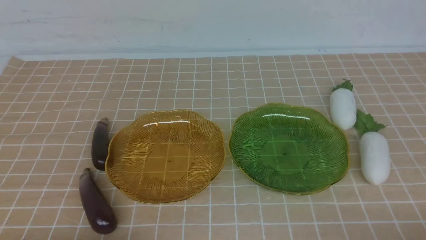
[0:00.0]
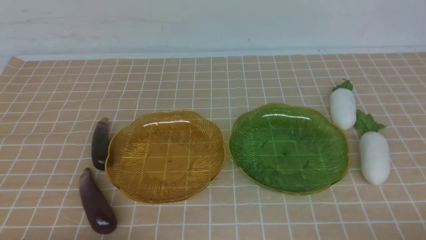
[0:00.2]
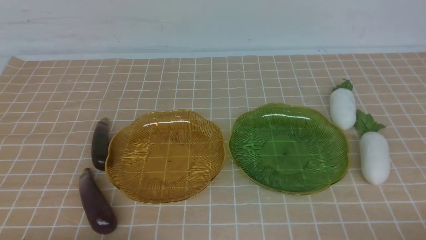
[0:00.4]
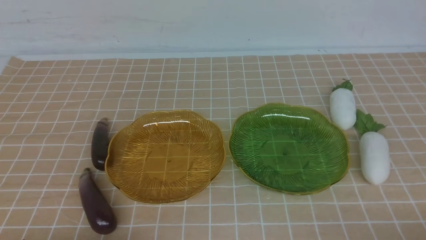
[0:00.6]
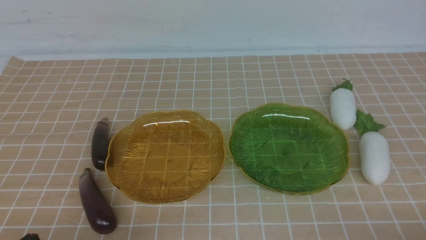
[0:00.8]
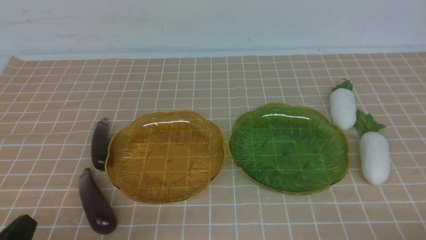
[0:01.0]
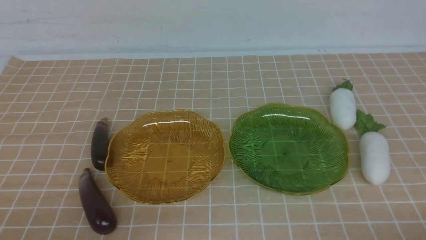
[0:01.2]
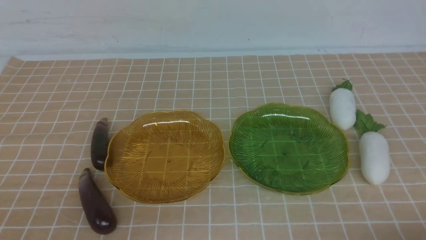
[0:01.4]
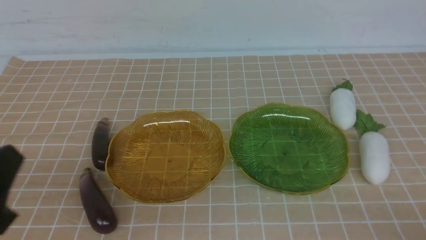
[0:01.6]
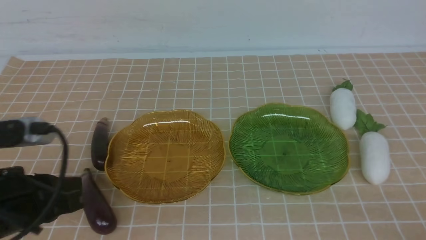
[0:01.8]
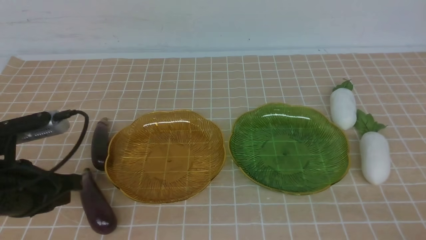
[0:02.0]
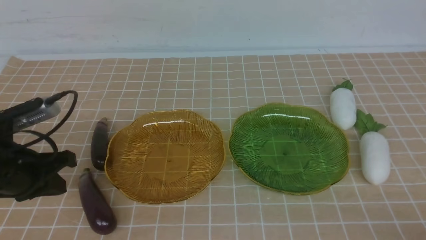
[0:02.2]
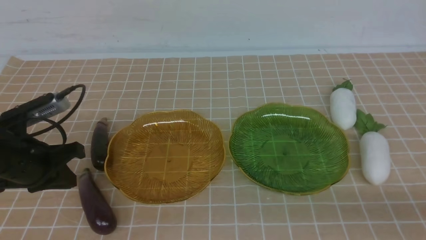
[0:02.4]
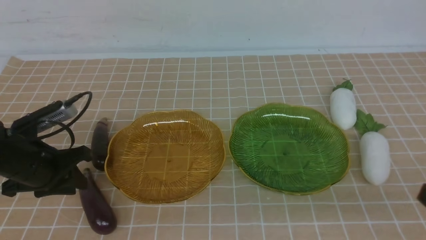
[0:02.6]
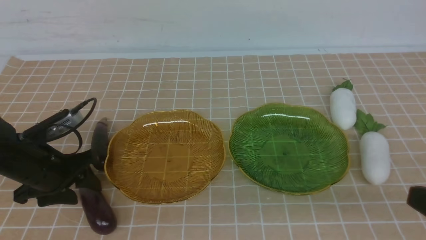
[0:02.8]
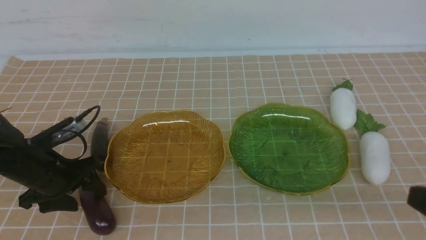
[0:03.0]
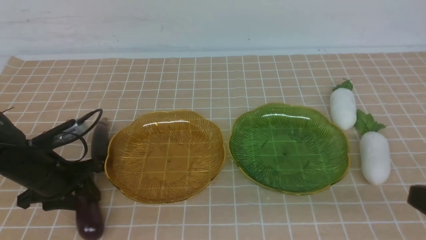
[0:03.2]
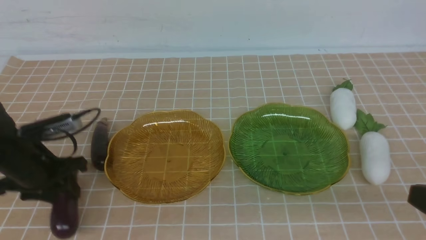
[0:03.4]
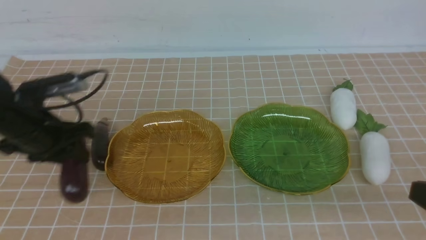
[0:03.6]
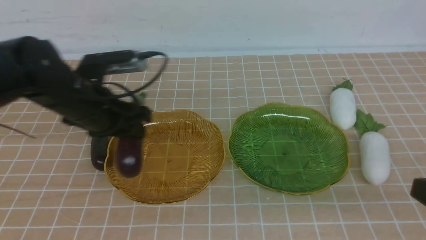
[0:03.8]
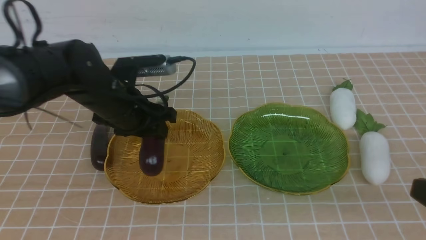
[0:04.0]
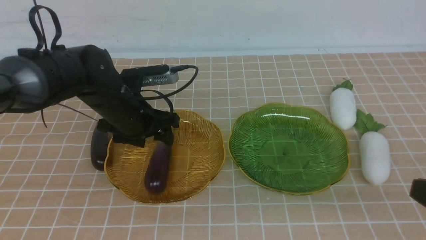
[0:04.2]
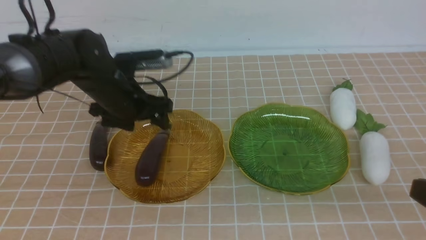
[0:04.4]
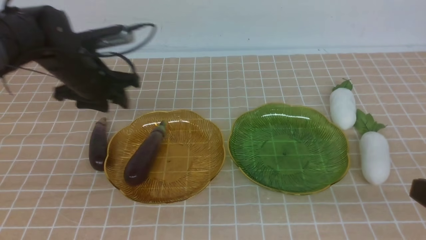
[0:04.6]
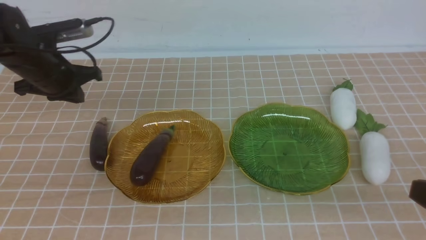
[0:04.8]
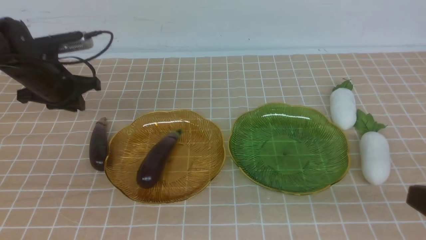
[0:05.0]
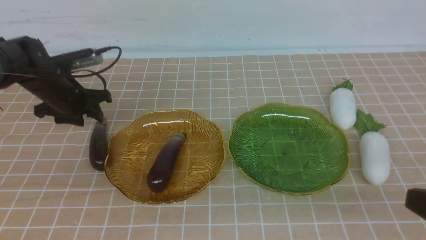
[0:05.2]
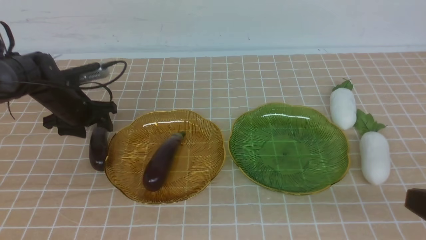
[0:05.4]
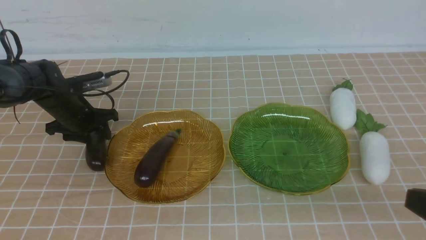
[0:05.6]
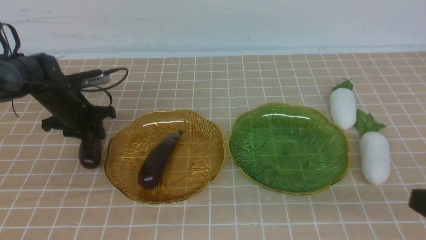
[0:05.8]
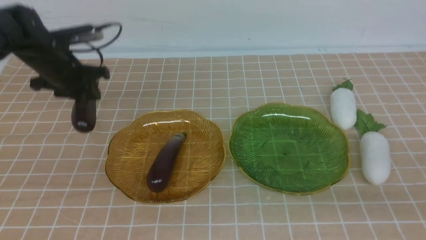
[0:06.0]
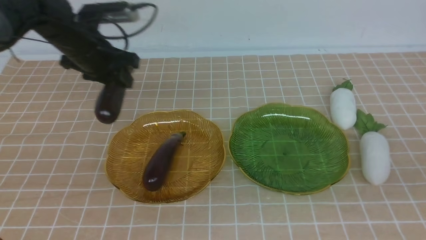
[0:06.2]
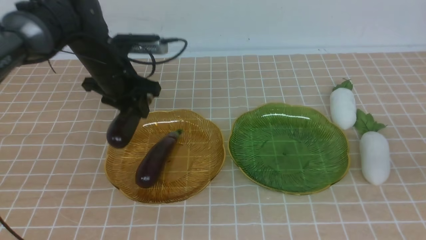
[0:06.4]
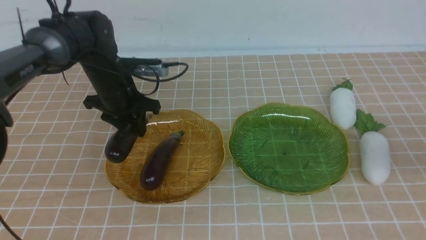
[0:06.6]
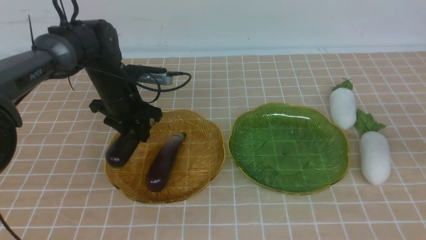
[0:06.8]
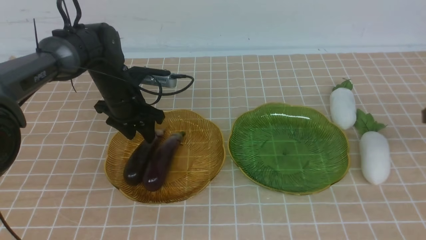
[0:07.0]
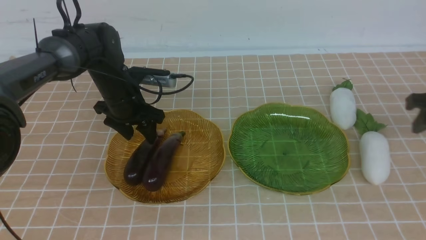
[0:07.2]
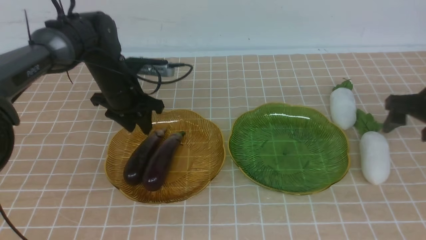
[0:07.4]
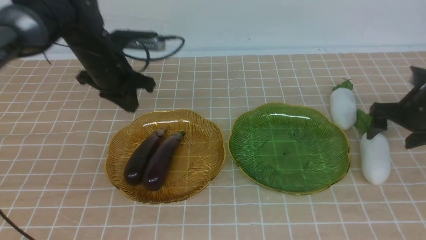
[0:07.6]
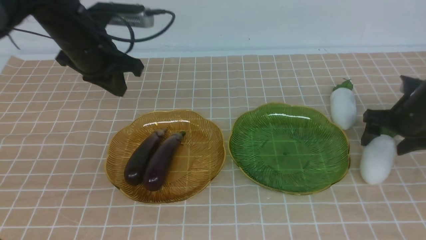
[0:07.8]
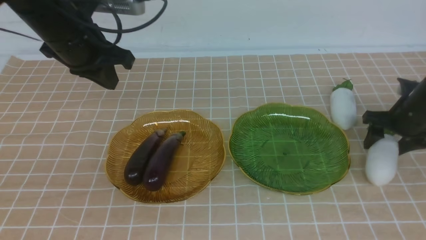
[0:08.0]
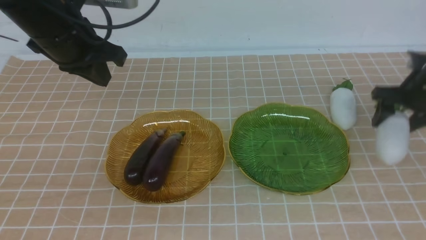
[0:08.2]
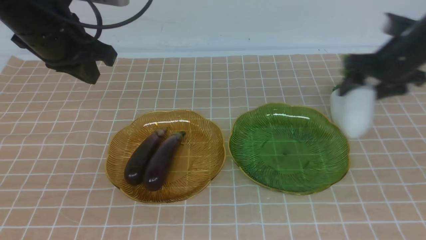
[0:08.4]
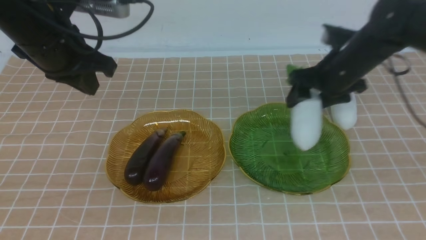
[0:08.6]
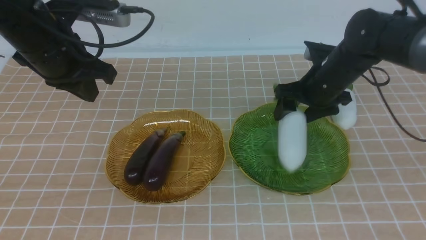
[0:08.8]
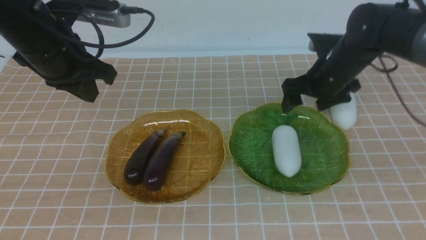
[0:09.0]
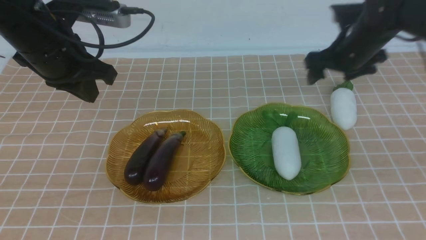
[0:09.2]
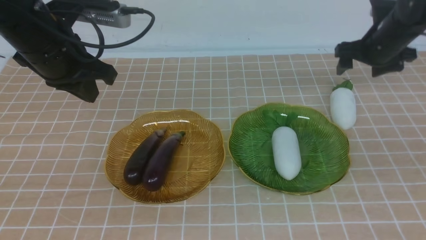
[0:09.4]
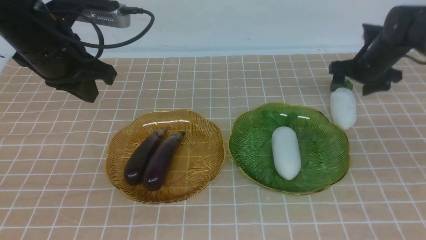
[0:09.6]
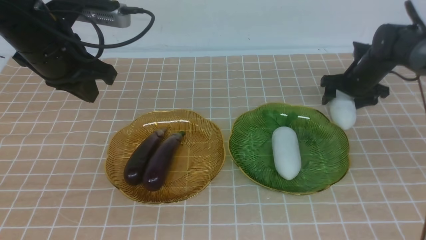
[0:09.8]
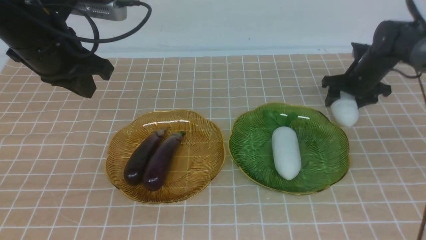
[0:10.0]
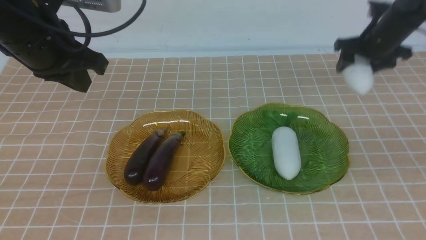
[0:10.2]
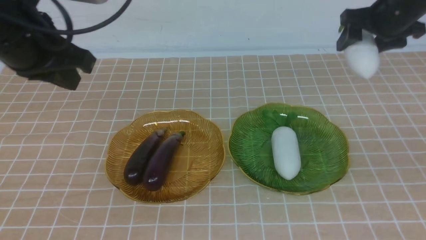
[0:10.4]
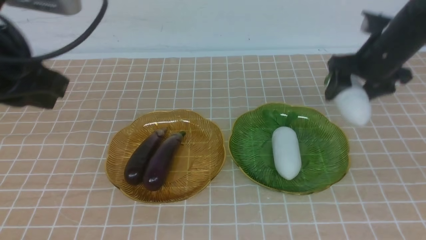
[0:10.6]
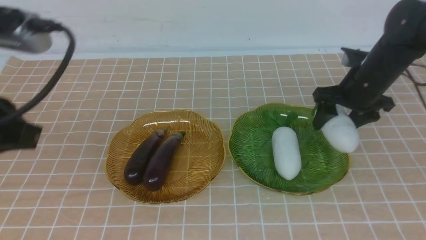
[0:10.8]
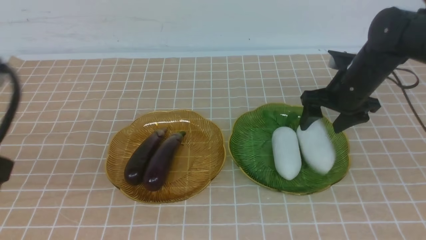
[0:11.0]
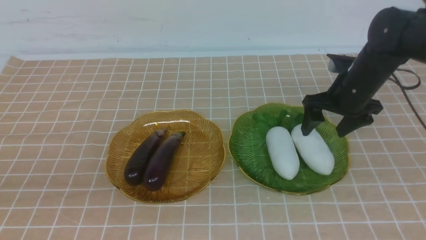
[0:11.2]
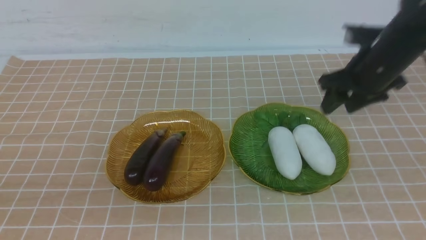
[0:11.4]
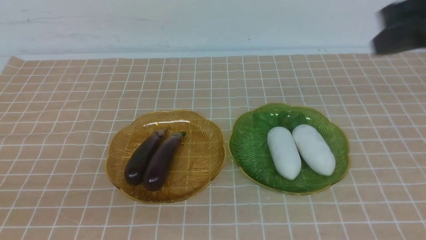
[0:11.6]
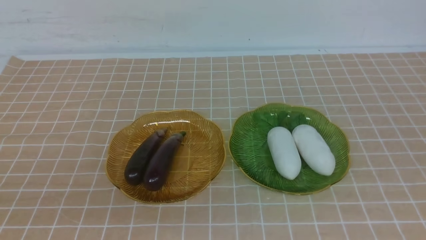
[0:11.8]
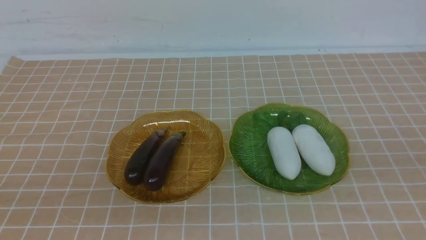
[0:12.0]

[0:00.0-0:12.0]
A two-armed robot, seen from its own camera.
Step, 0:00.0 to 0:07.2: use the left arm to grab an eggplant and put it into the left plate.
Step, 0:07.4 to 0:11.2: use the right arm to grab a radish and put it into the right plate.
0:00.0 to 0:01.6: The left gripper heads upward and forward, covering some 15 cm.
0:01.6 to 0:03.0: The left gripper is displaced forward and downward by some 20 cm, and opens.
0:03.0 to 0:04.4: The left gripper goes roughly 15 cm to the right, forward and upward, and closes, then reopens.
0:04.4 to 0:06.0: The left gripper goes some 10 cm to the left and forward, and closes.
0:06.0 to 0:07.6: The right gripper goes approximately 30 cm forward and downward, and opens. Meanwhile the left gripper goes about 10 cm upward and to the right, and closes.
0:07.6 to 0:09.0: The left gripper moves backward, about 5 cm; the right gripper moves forward, to the left and upward, approximately 15 cm.
0:09.0 to 0:10.4: The left gripper heads backward, covering approximately 20 cm, while the right gripper travels backward by some 10 cm.
0:10.4 to 0:12.0: The left gripper is displaced backward by about 10 cm. The right gripper shifts some 40 cm backward, and closes.

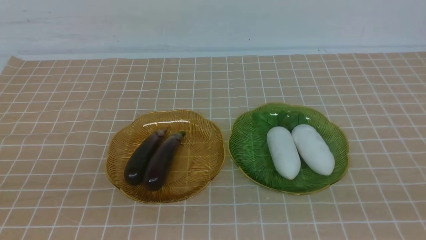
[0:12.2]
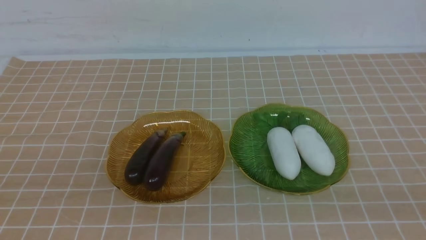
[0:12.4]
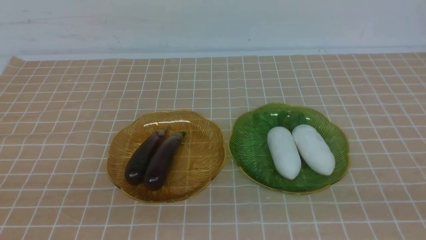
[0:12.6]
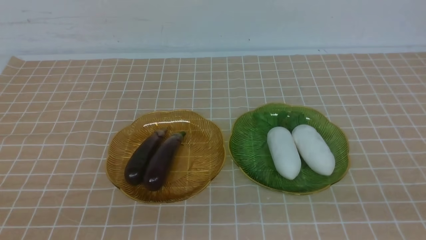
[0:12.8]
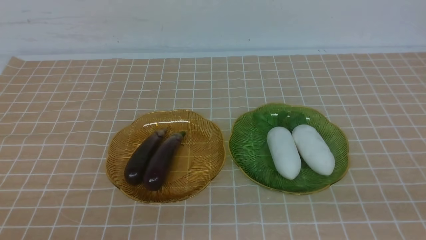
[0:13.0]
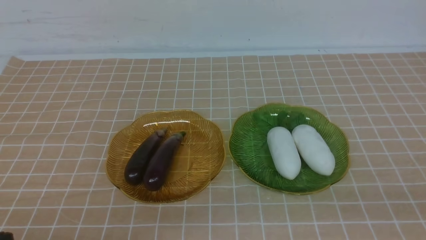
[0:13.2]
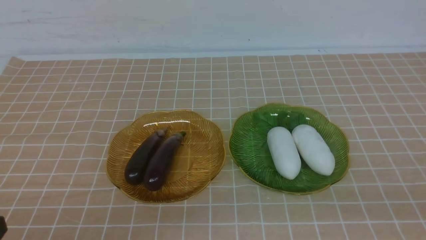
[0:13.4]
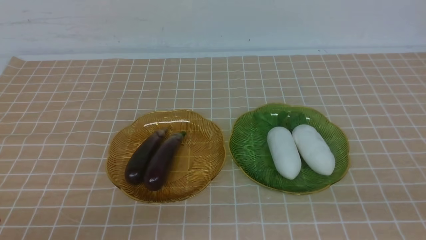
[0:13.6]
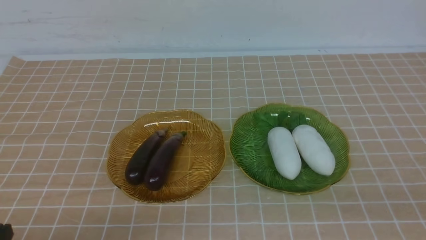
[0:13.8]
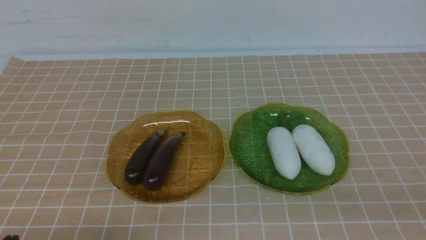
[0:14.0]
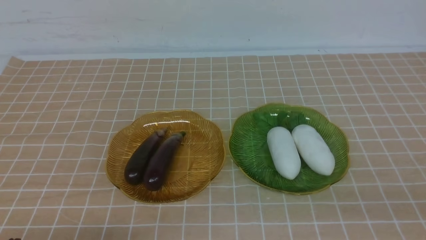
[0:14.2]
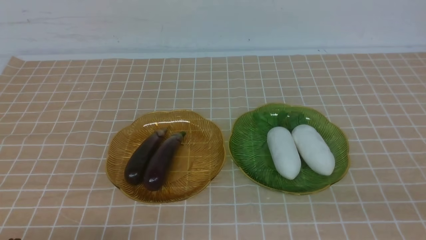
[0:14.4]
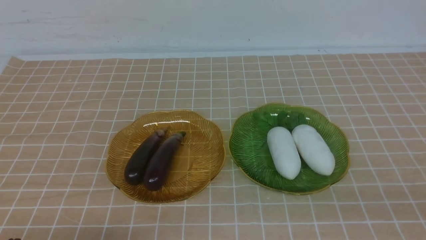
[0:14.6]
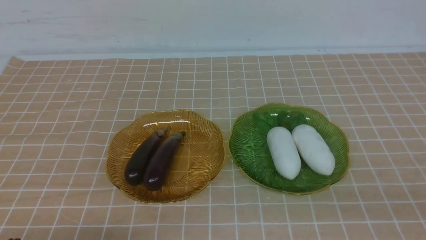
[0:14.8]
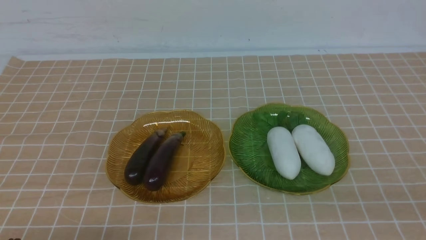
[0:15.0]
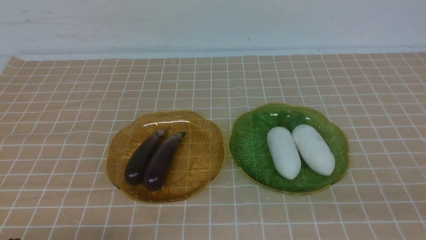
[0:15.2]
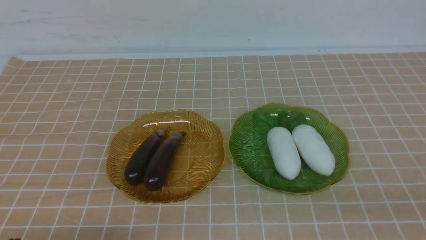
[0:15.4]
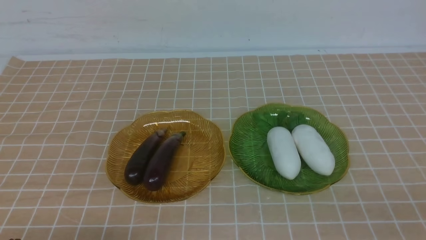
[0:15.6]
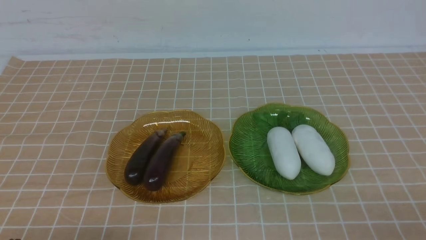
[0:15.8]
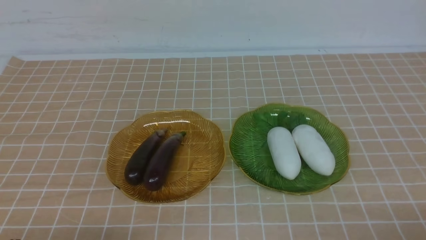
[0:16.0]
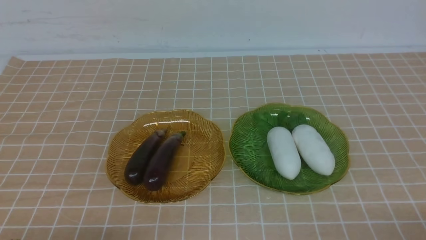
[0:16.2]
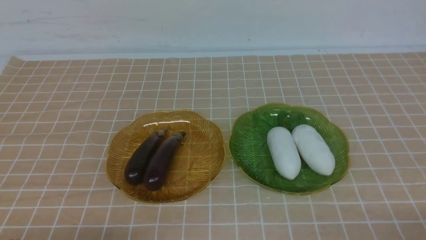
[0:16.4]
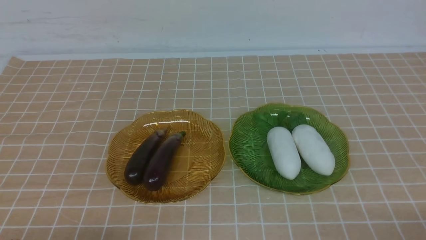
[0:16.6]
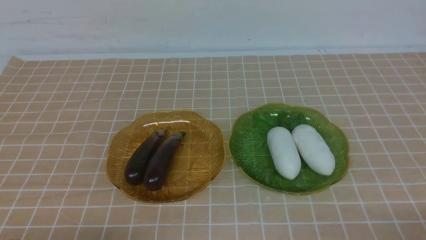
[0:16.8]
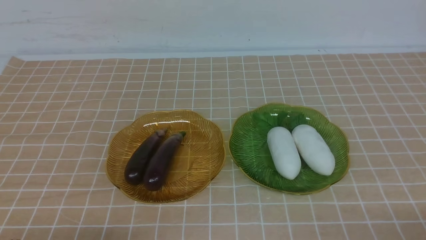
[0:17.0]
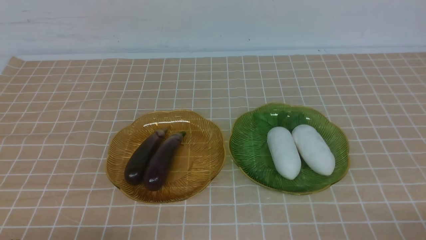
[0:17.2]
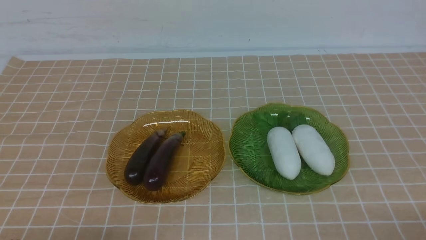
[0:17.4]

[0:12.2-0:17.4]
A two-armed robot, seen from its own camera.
0:15.6 to 0:17.4: Both grippers stay put.
